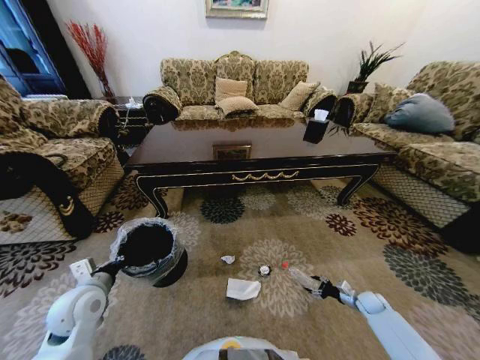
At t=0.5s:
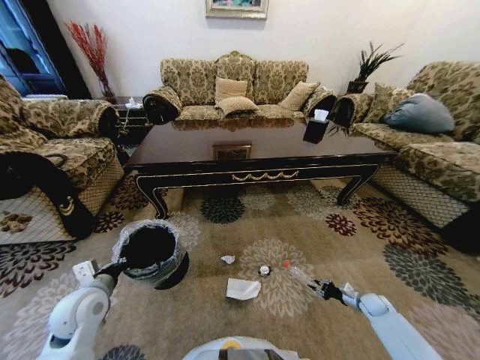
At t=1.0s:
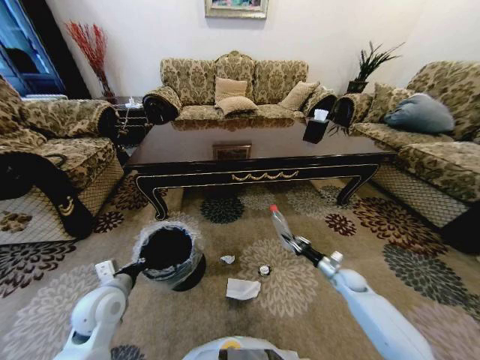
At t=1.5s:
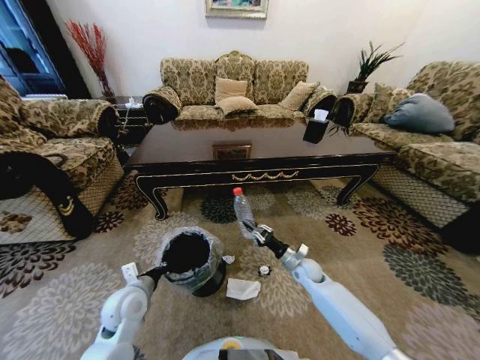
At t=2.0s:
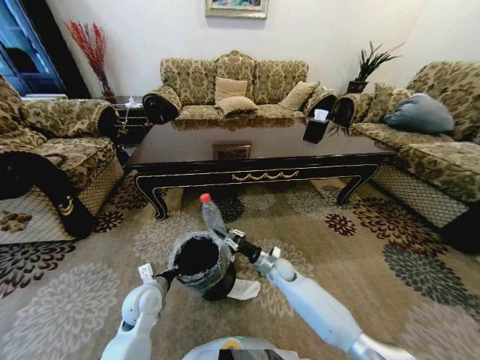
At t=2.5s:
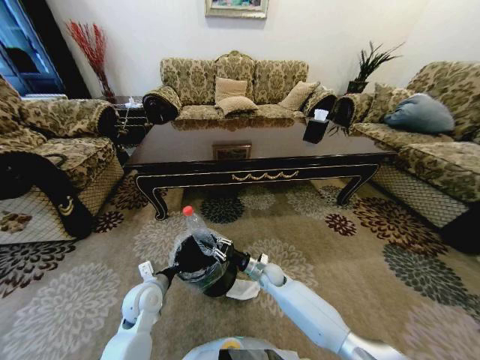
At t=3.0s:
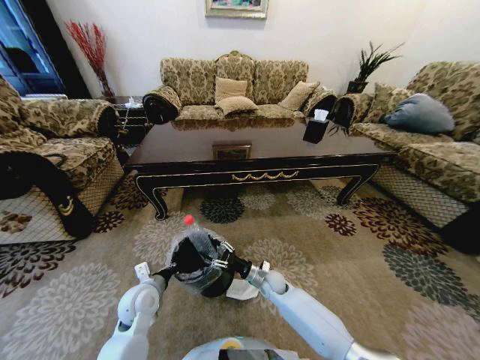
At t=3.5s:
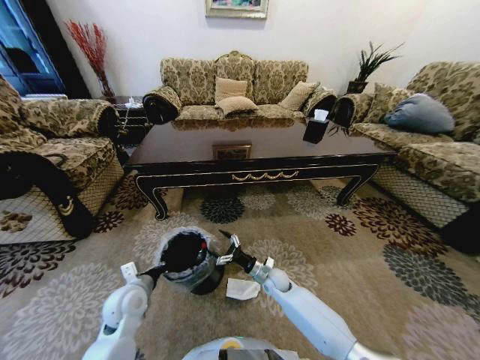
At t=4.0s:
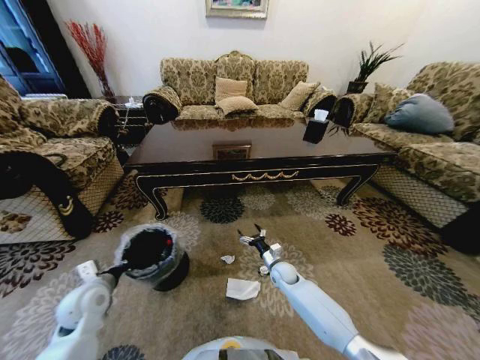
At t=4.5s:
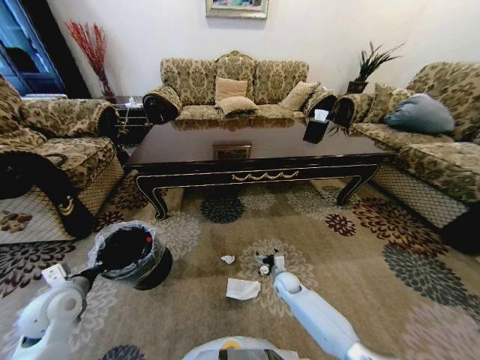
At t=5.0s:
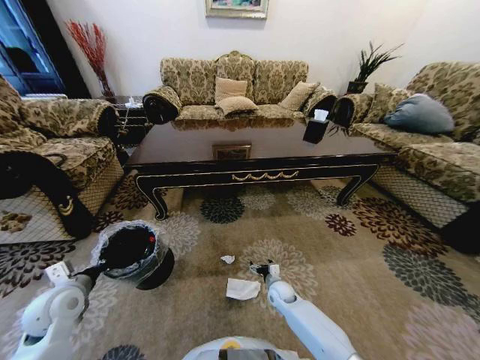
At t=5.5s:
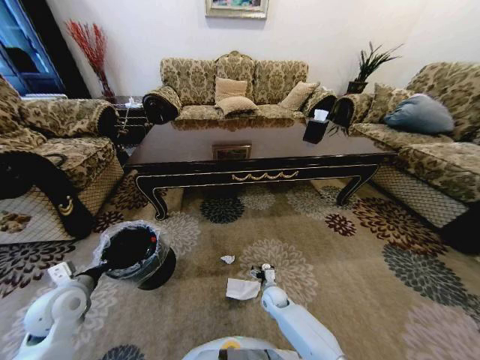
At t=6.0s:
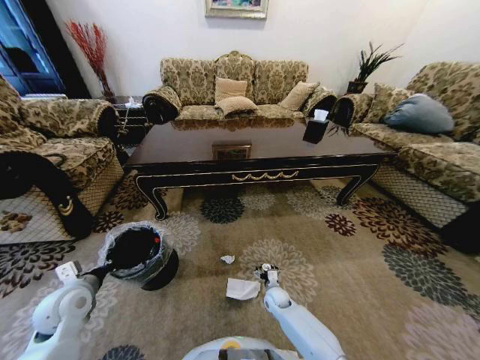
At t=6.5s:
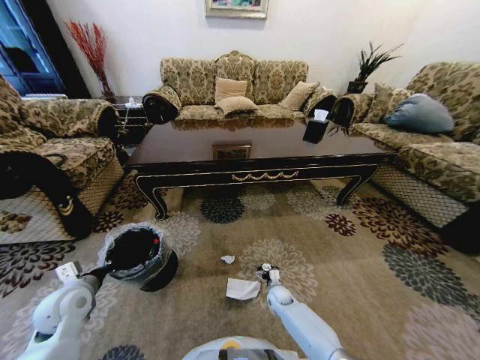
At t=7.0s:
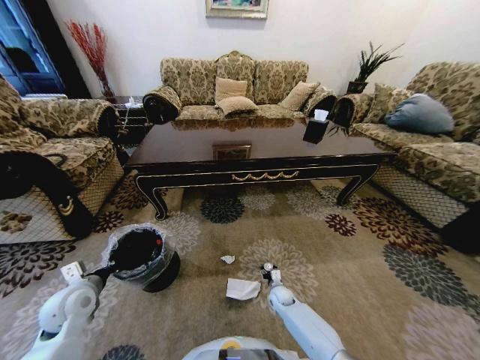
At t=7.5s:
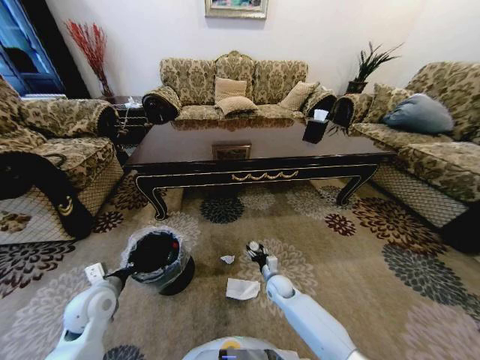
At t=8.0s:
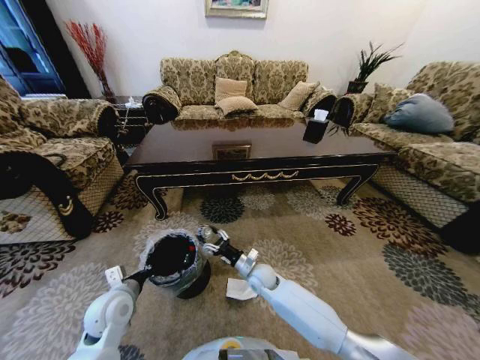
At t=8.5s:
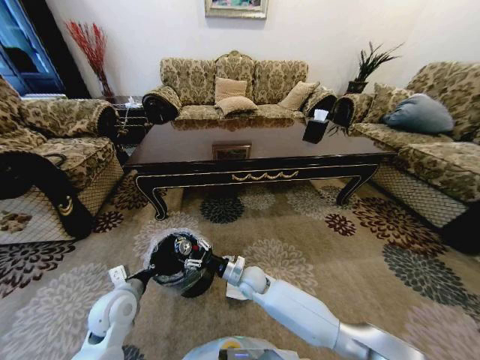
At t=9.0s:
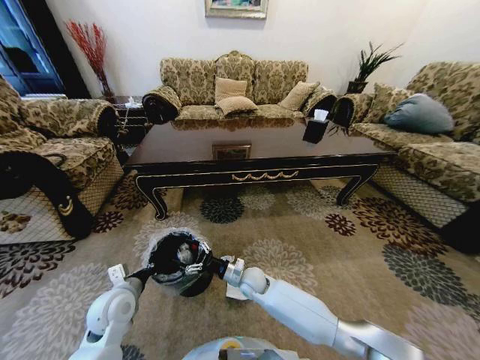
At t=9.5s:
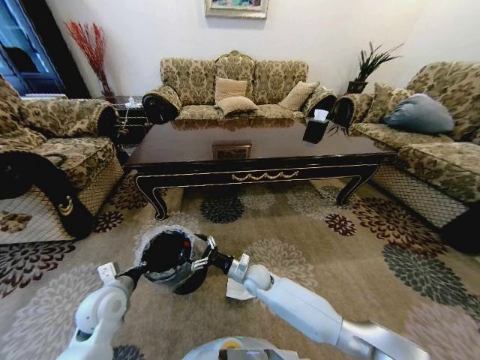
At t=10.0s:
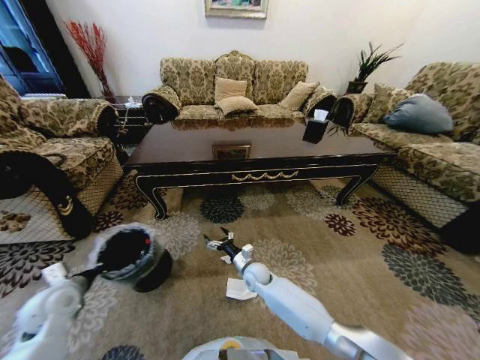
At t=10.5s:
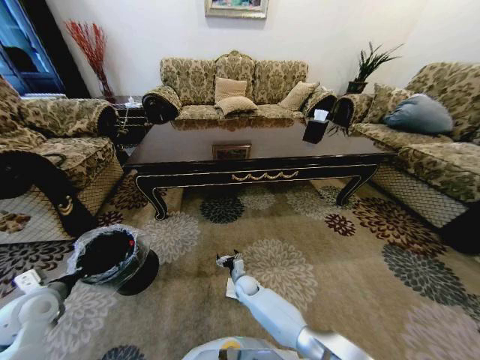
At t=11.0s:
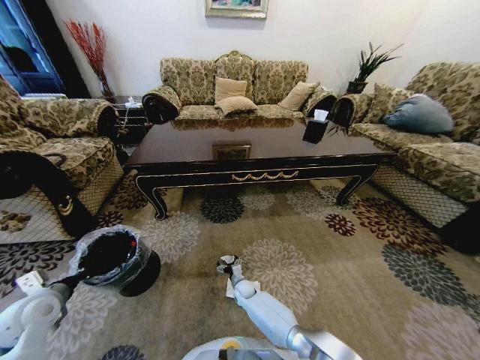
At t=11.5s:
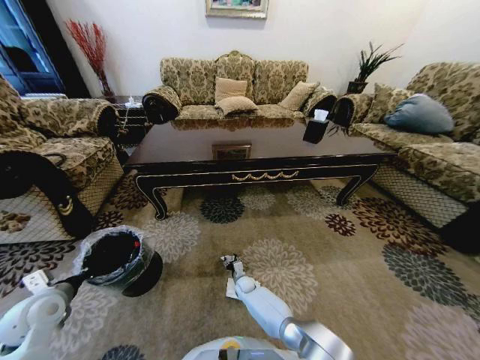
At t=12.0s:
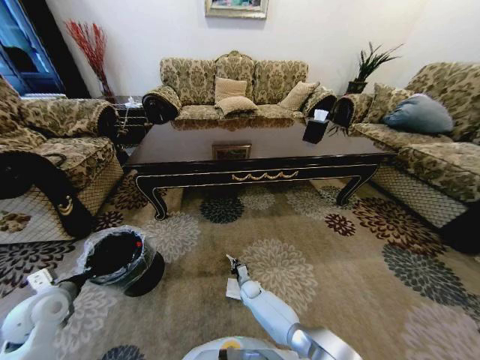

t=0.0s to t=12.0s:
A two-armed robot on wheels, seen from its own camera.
Task of the whole recording: Move to the front of the table and pick up the trash from the floor, then place it into the trash bin.
t=0.0s to t=2.0s: The left gripper heads to the right and downward, covering approximately 15 cm; the right gripper moves to the left, roughly 35 cm, and closes up.
t=2.0s to t=4.0s: The right gripper opens its fingers; the left gripper shifts approximately 10 cm to the left.
t=4.0s to t=6.0s: The right gripper shifts approximately 10 cm downward and backward.
t=6.0s to t=8.0s: The right gripper shifts about 15 cm upward and to the left; the left gripper moves to the right, roughly 10 cm.
t=8.0s to t=10.0s: The left gripper shifts roughly 15 cm to the left.
t=10.0s to t=12.0s: The right gripper travels downward by about 15 cm, and closes its fingers.

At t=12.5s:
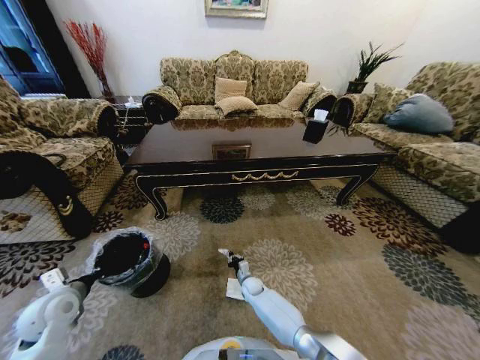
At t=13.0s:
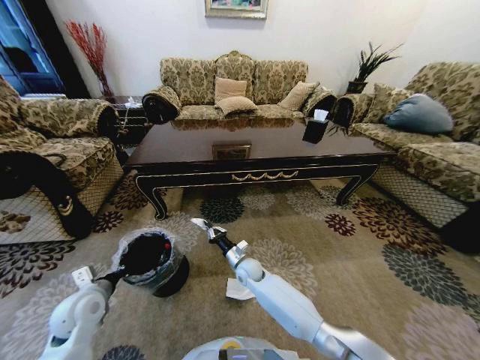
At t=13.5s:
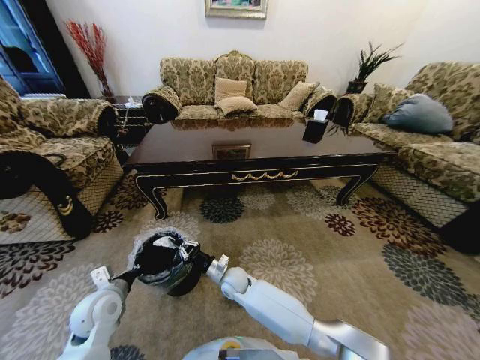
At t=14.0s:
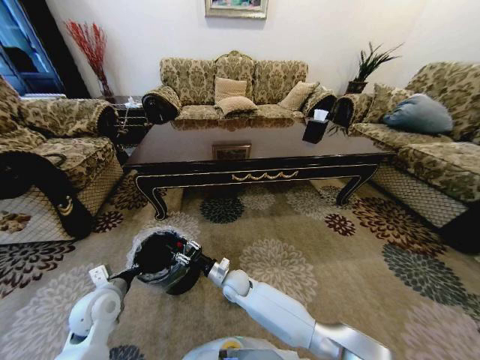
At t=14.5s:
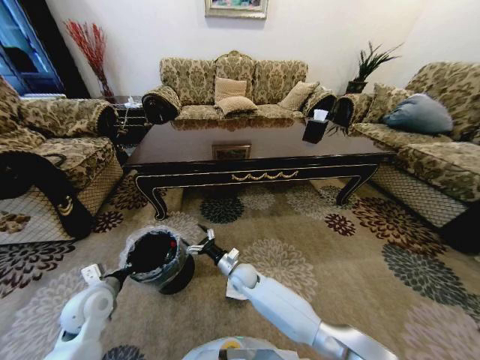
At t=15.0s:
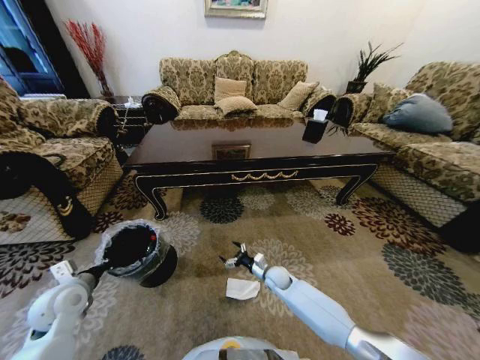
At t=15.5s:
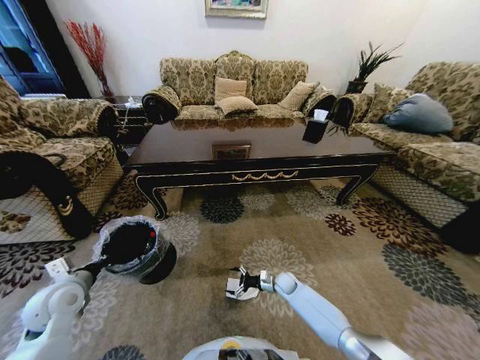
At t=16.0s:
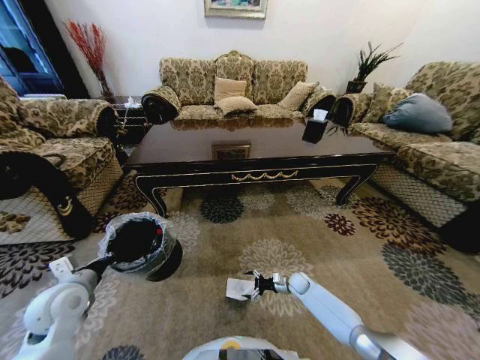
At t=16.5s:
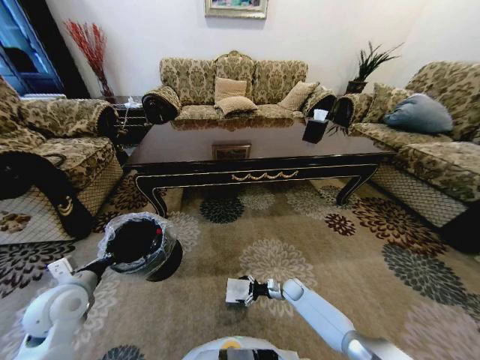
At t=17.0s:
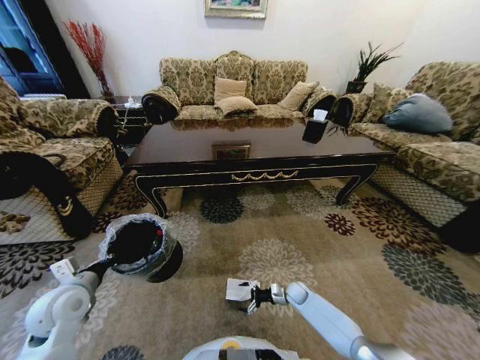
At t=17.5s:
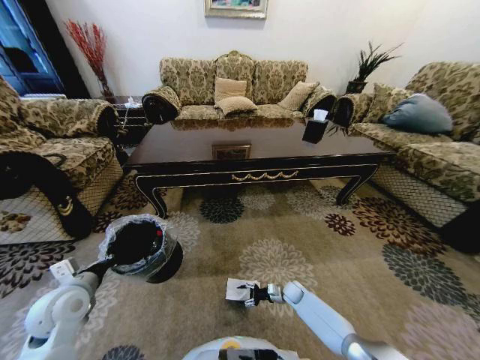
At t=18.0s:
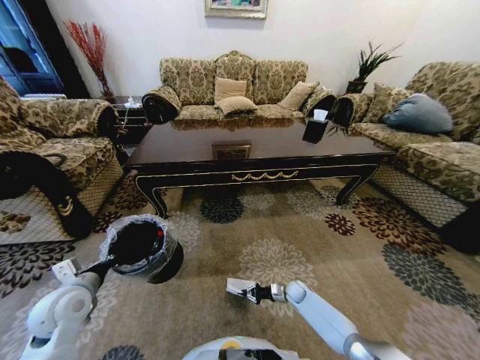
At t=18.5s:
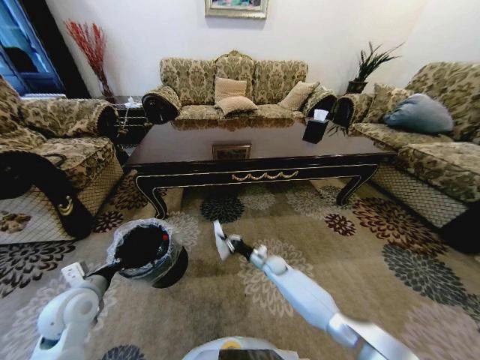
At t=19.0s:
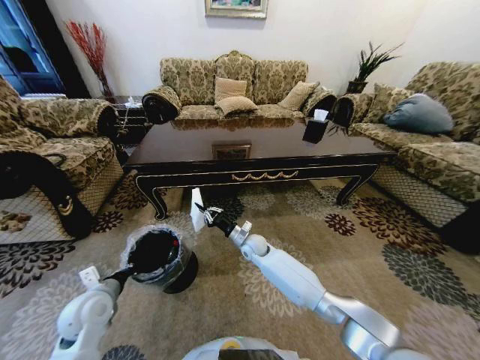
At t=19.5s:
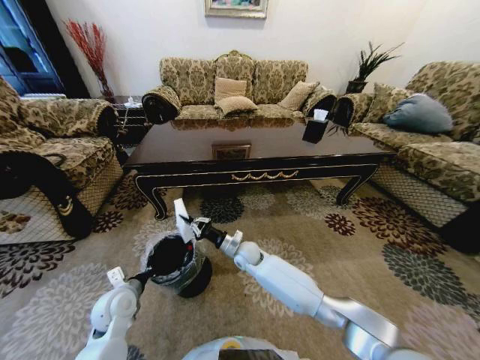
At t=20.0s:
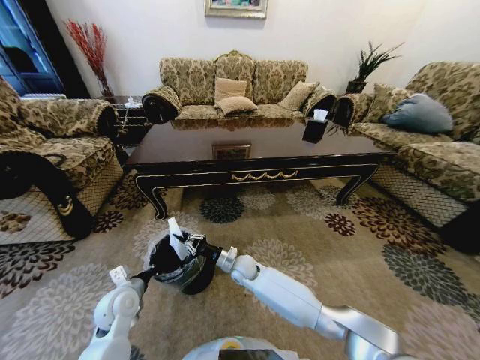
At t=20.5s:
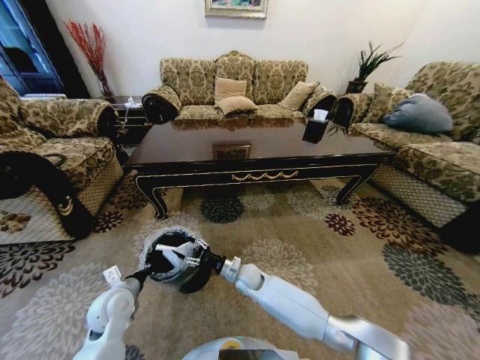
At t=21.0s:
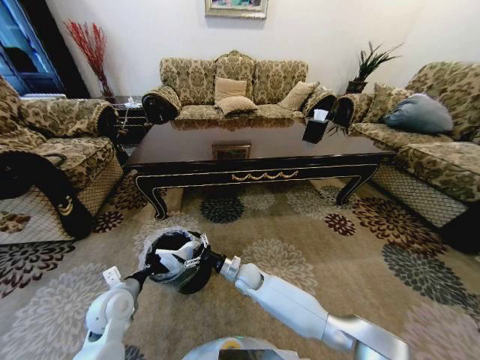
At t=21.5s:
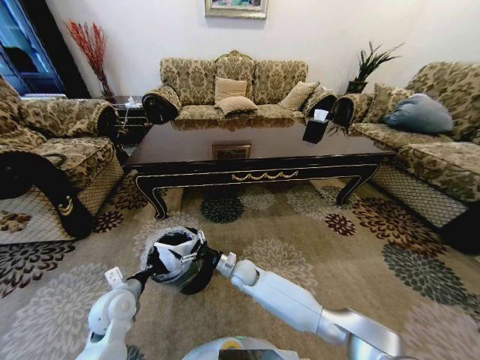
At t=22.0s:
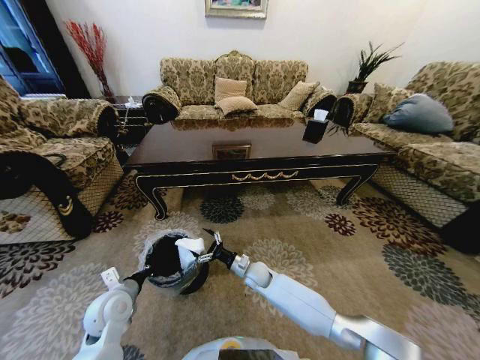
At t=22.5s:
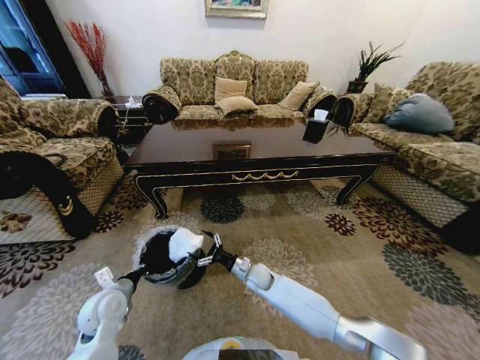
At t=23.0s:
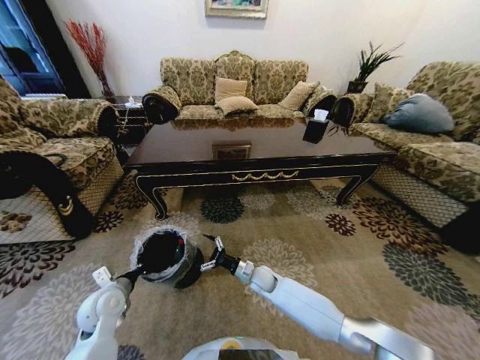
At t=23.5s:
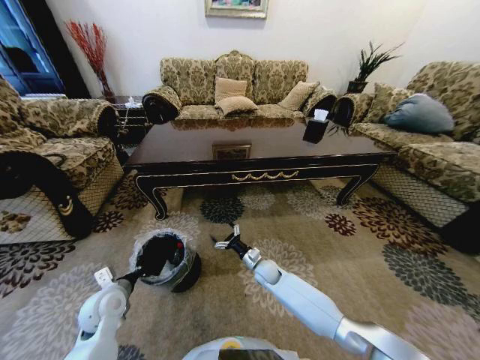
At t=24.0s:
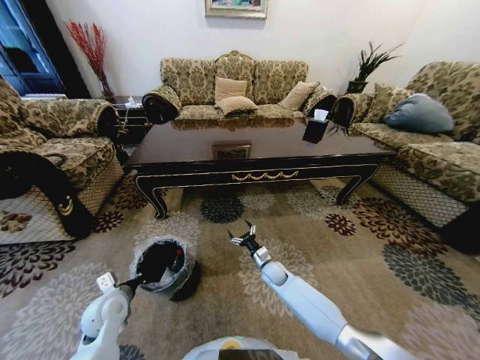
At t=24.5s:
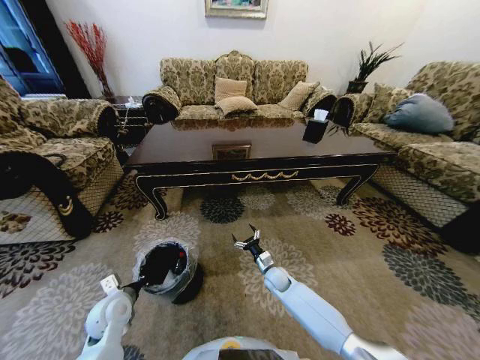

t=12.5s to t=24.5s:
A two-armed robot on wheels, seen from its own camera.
Task of the whole recording: Move to the front of the table and pick up the trash from the floor, then place it into the trash bin.
t=12.5s to t=14.5s: The left gripper shifts approximately 5 cm to the right; the right gripper shifts approximately 15 cm upward, and opens up.
t=14.5s to t=16.5s: The left gripper travels upward by some 5 cm. Meanwhile the right gripper travels to the right and downward by roughly 25 cm.
t=16.5s to t=18.5s: The right gripper moves to the left, upward and forward, some 15 cm, and closes its fingers.
t=18.5s to t=20.5s: The left gripper goes roughly 10 cm to the right and downward. The right gripper is displaced to the left, backward and upward by about 15 cm, and opens up.
t=20.5s to t=22.5s: The right gripper opens up.
t=22.5s to t=24.5s: The right gripper goes approximately 10 cm to the right.

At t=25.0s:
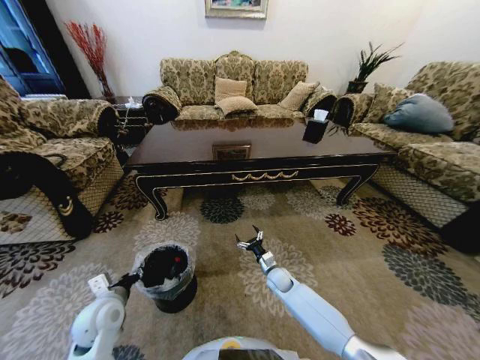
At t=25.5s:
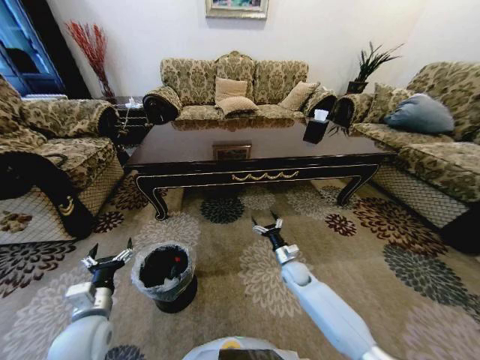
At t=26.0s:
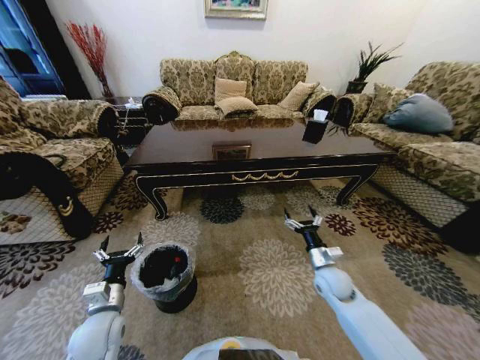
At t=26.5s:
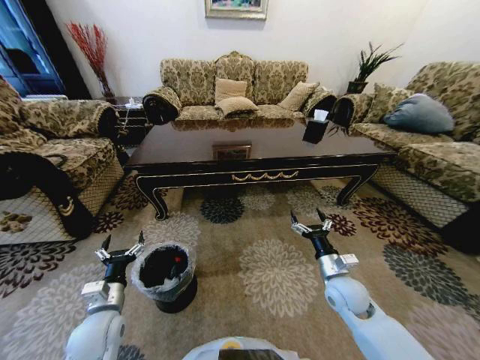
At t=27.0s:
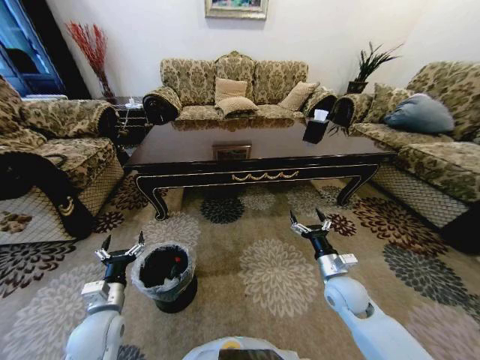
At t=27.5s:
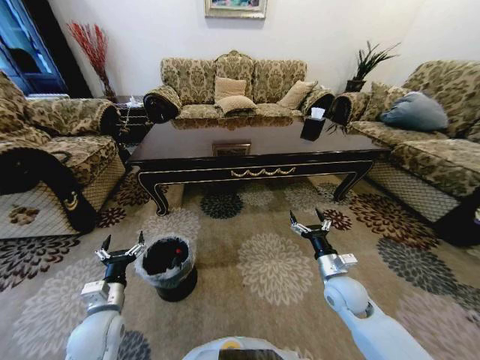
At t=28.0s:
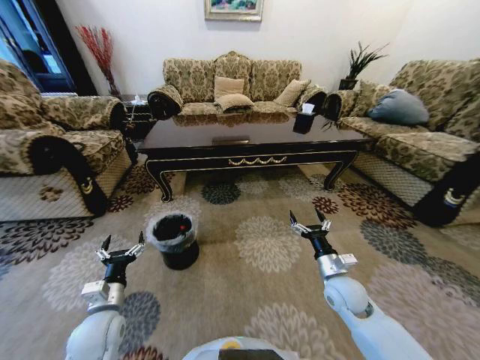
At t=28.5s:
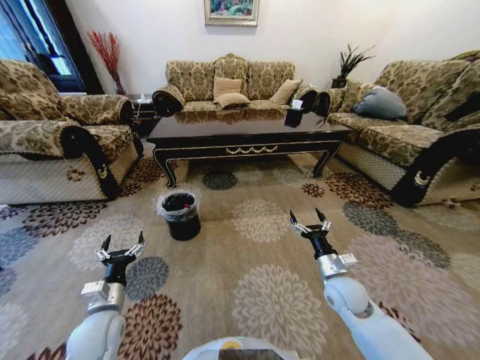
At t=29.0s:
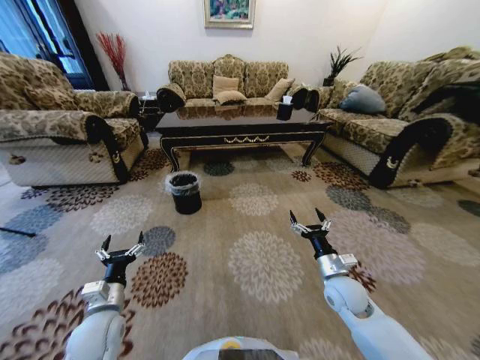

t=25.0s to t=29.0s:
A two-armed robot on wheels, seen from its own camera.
Task of the whole recording: Move to the front of the table and pick up the trash from the floor, then place it into the trash bin.
t=25.0s to t=27.0s: The left gripper opens its fingers. The right gripper moves upward, to the right and backward, approximately 25 cm.